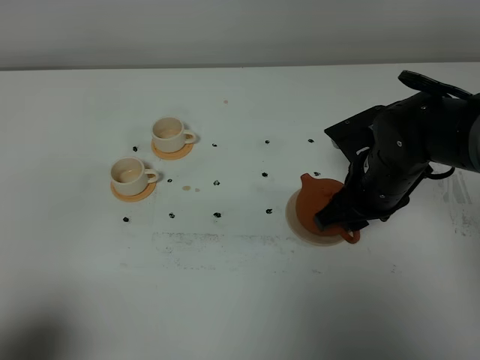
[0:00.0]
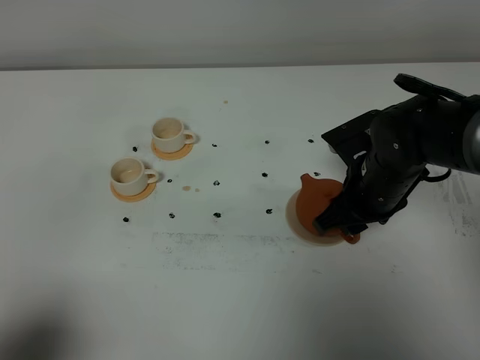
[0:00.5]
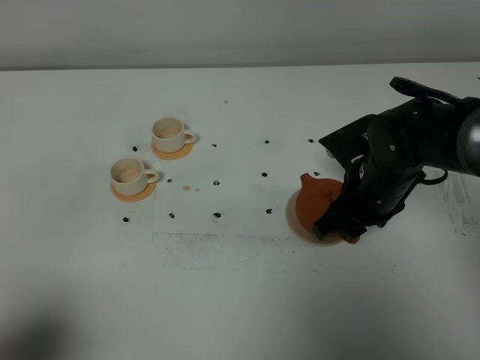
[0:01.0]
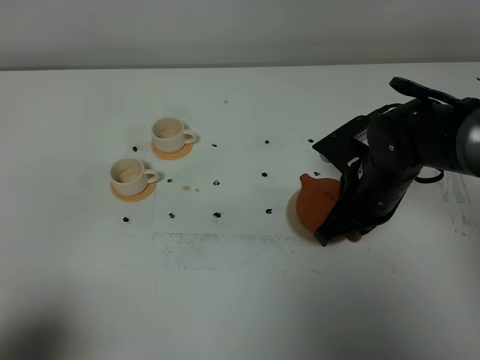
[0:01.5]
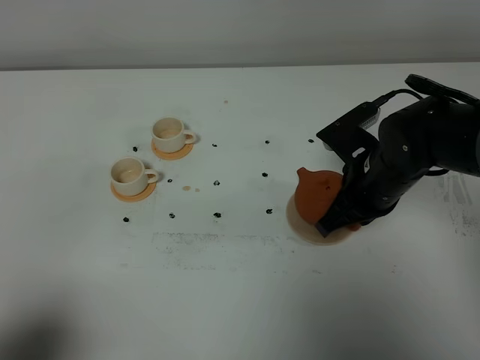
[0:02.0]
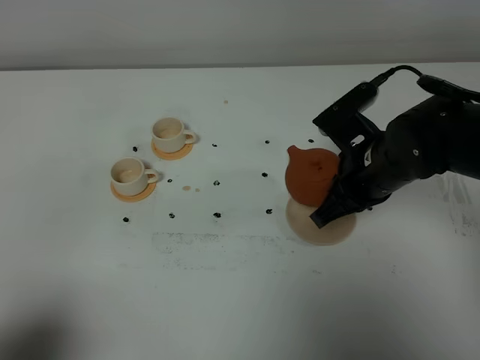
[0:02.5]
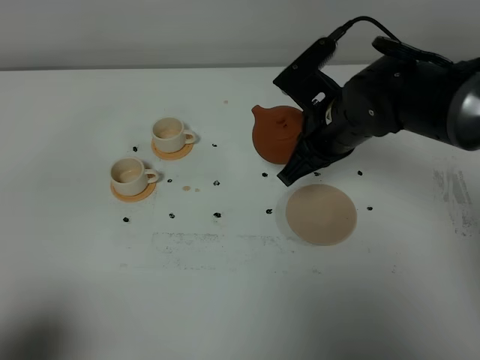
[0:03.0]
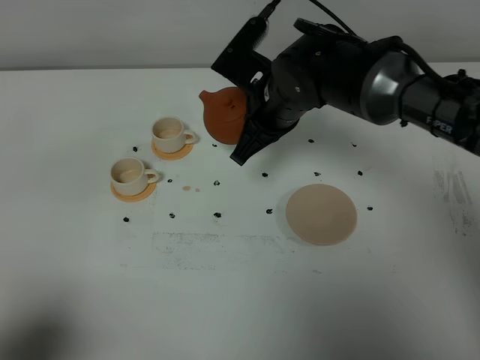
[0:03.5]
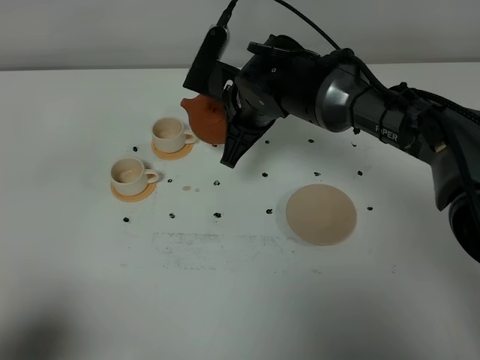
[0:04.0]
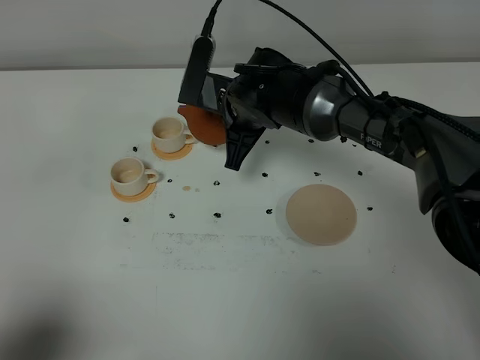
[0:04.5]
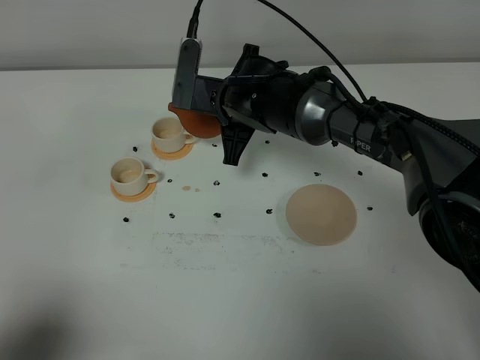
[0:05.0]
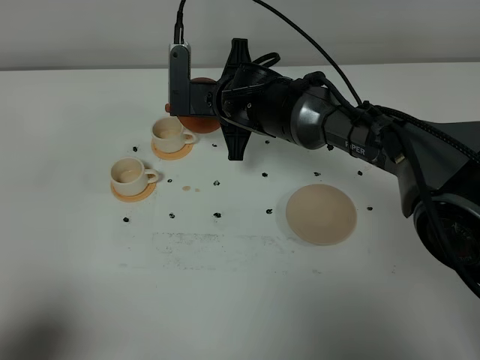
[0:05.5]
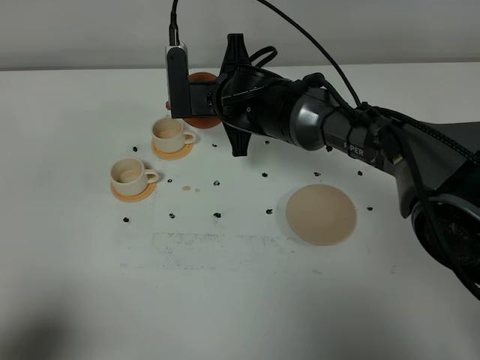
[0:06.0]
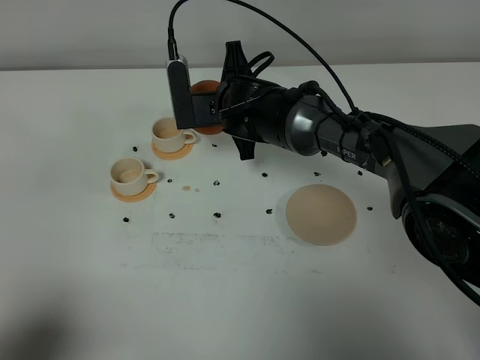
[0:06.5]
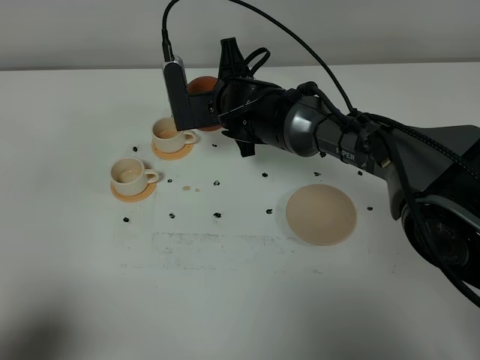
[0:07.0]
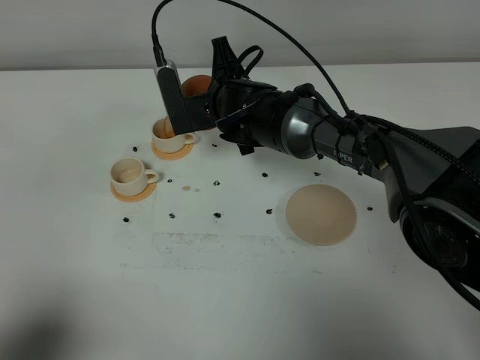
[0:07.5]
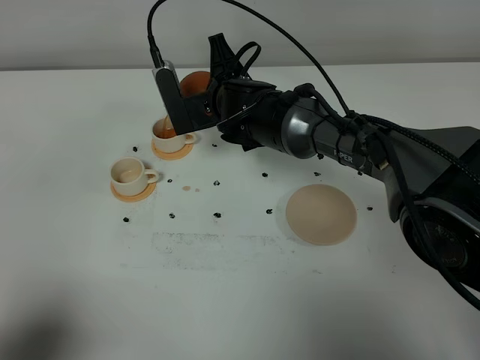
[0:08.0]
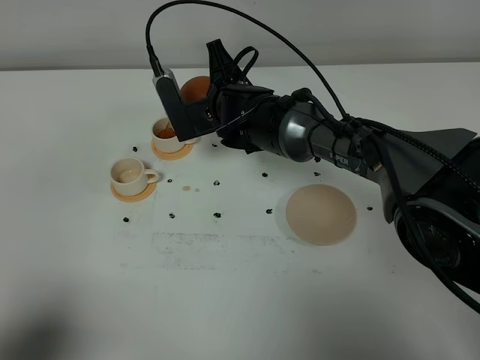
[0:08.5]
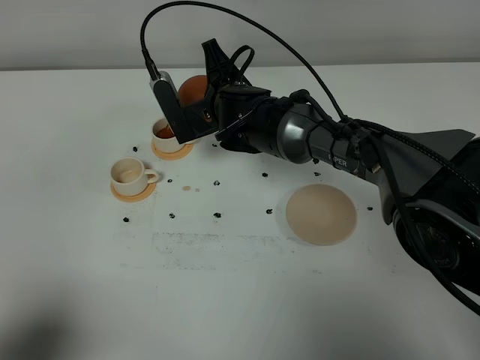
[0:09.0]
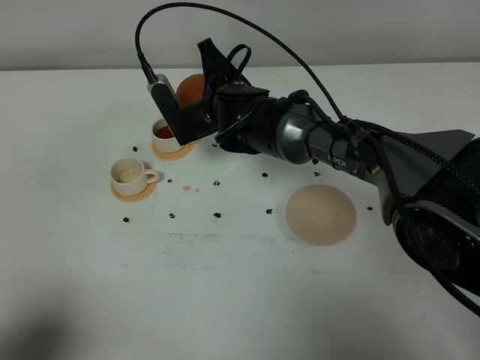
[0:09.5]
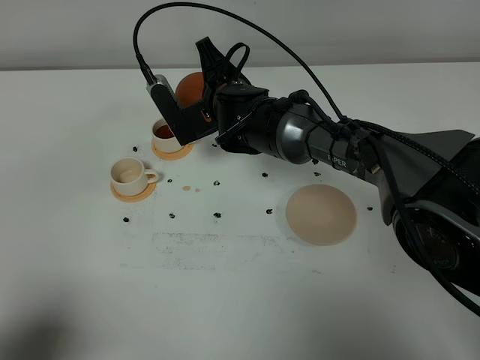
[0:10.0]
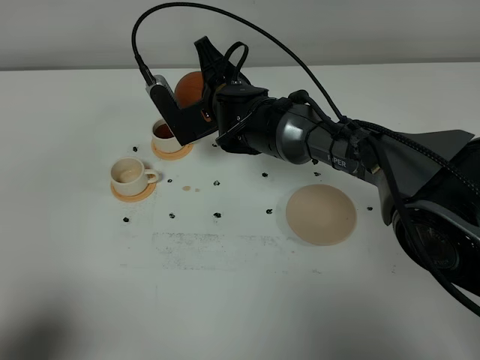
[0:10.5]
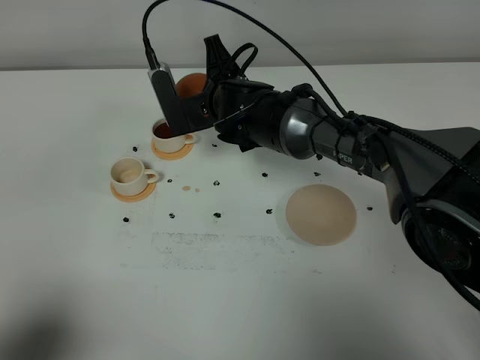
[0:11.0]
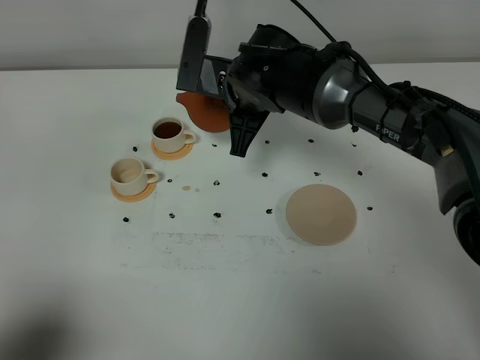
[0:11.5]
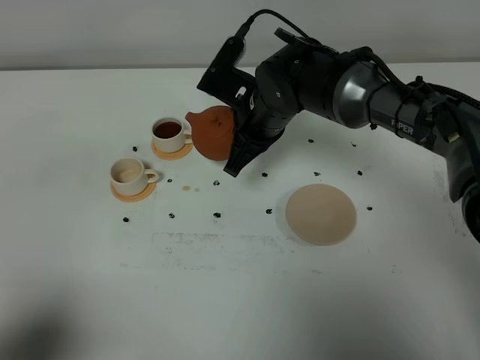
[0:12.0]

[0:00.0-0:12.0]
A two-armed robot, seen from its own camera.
Task of the whole recording: grasp the brown teapot and pour the tea into the two white teacups one by one, put the brown teapot back in its original place.
Step, 0:02.0 to 0:11.0: Pour tea into the teacup with the right gripper.
0:00.0 to 0:02.0: The right gripper closes up.
0:02.0 to 0:04.0: The right gripper travels to the left and forward by approximately 15 cm.
0:06.0 to 0:08.0: The grippers stay close to where they were, moving slightly.
0:08.0 to 0:10.0: The grippers stay close to where they were, moving slightly.
0:10.0 to 0:12.0: The right gripper ends up roughly 5 cm from where it was.

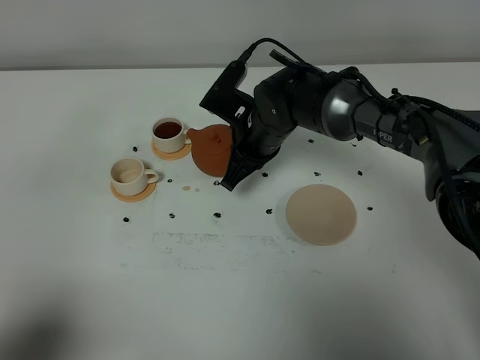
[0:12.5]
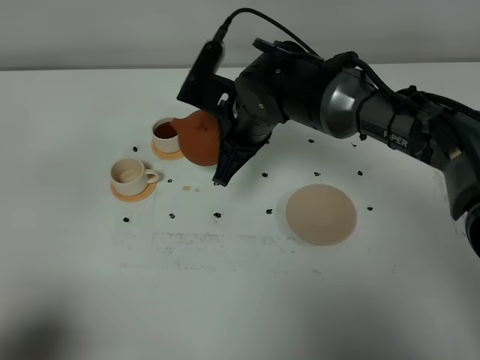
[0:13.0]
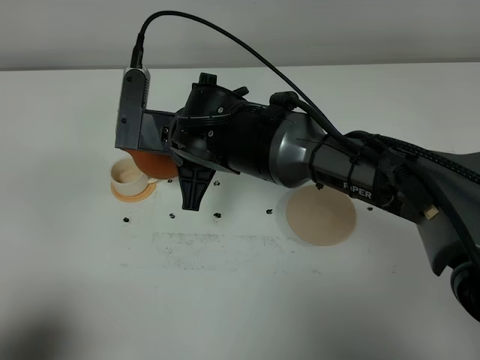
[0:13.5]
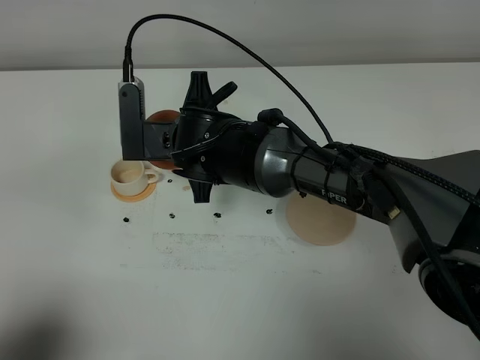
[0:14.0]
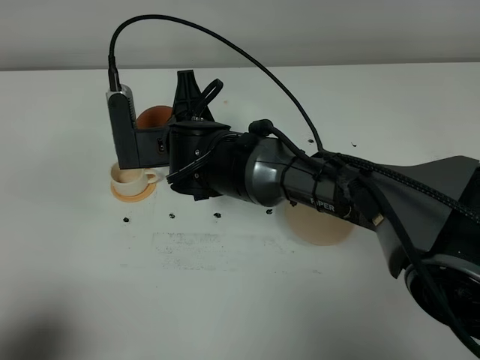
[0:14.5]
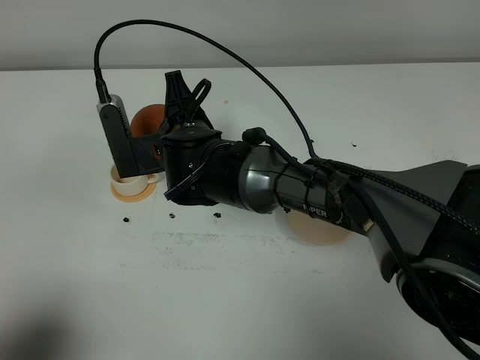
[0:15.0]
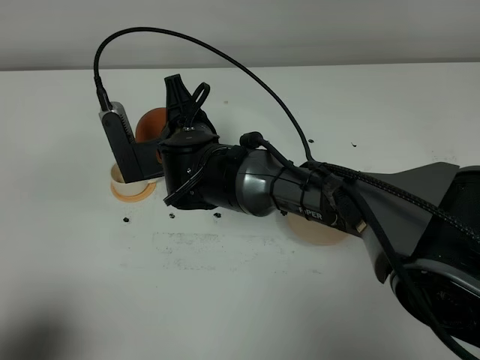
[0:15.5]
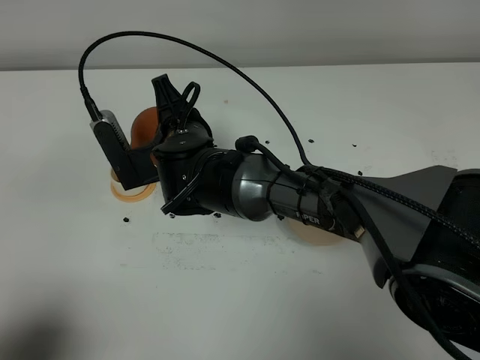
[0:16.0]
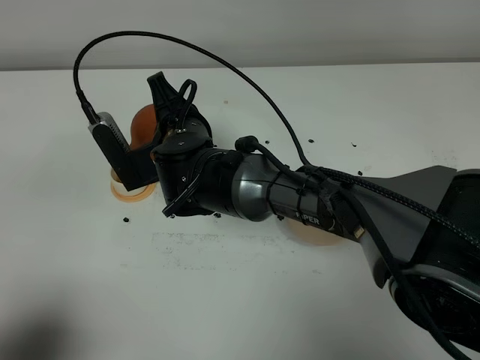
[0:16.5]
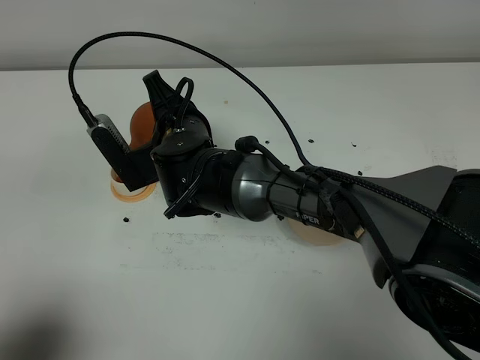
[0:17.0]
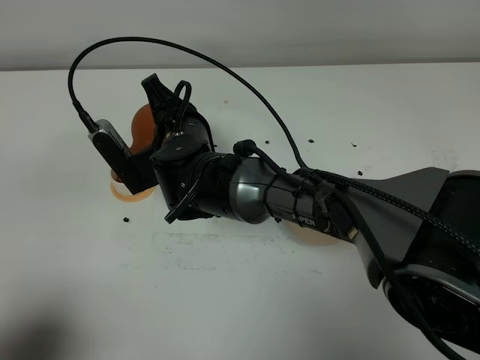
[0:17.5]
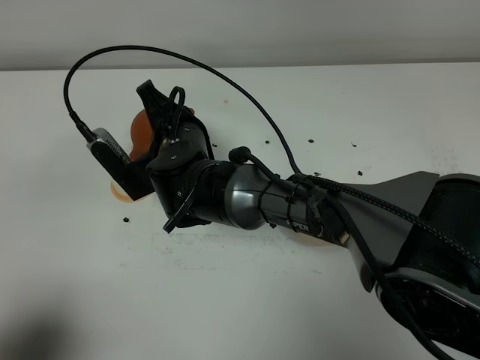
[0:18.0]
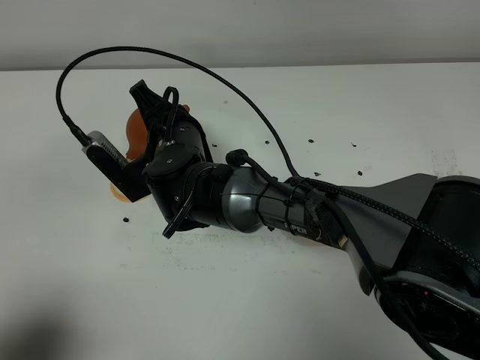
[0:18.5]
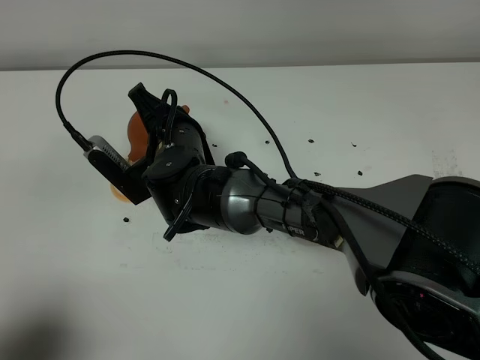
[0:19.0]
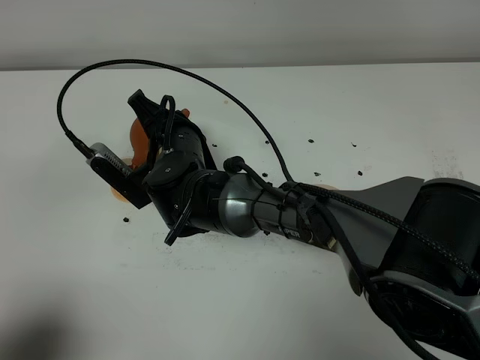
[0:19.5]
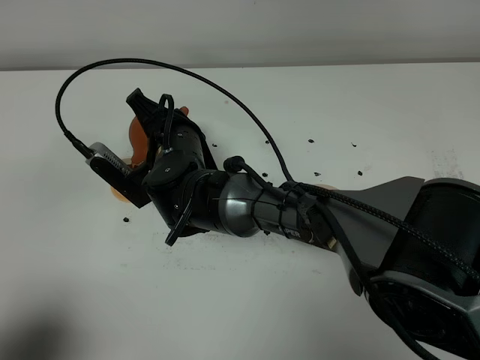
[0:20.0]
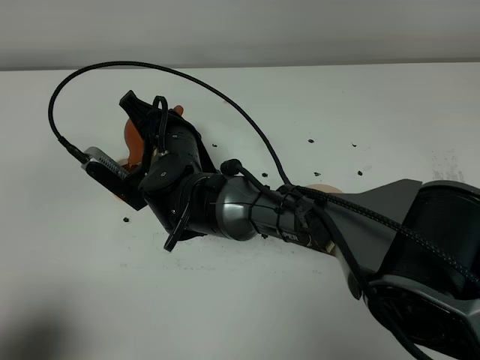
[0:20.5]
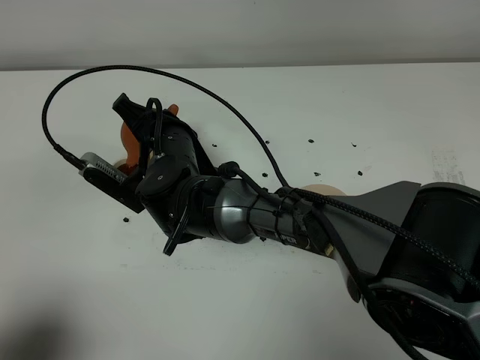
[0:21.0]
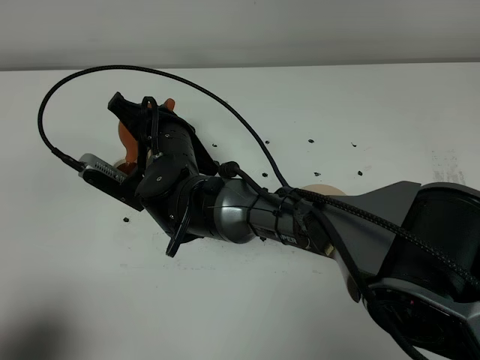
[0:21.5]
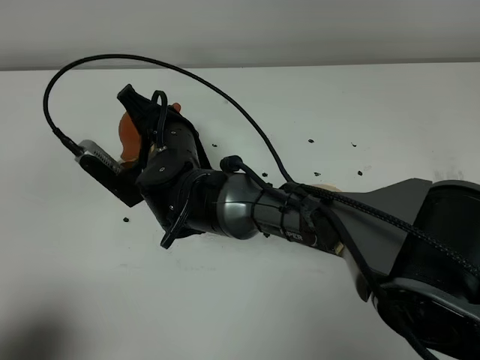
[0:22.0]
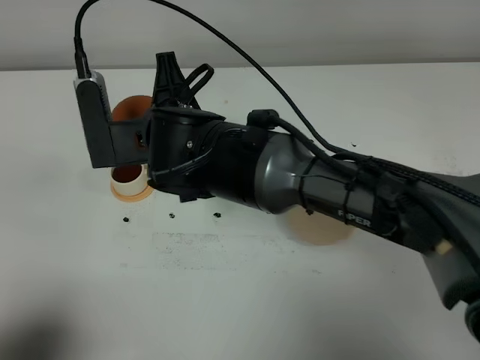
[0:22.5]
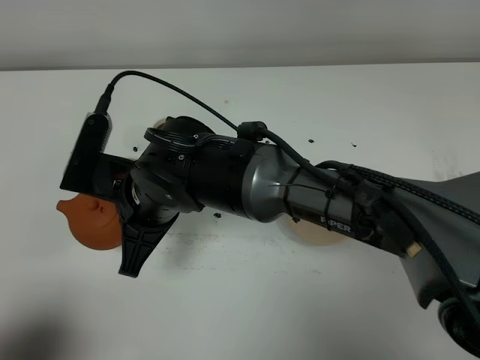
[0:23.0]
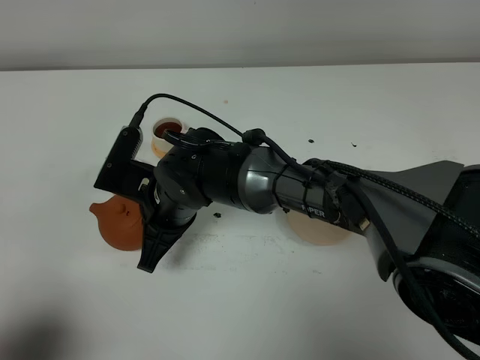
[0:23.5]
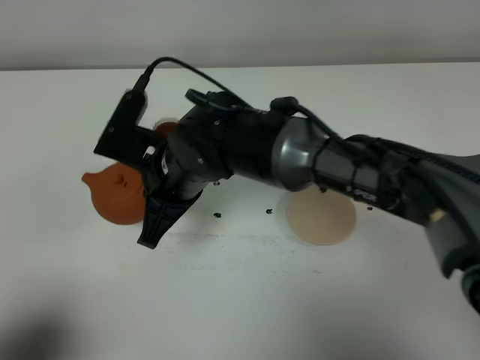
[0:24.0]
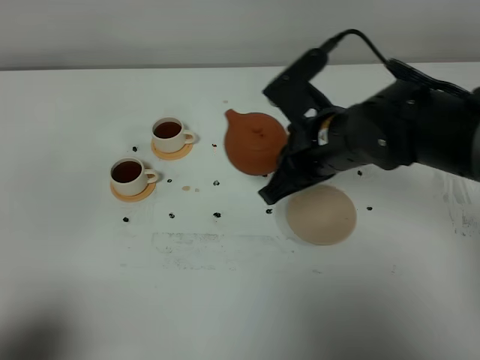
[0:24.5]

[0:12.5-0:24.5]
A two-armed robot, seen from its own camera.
Task of the whole recording: grasp the brown teapot and pour the tea into the two white teacups one by one, put the brown teapot back in its original place.
Step, 0:12.5 to 0:22.0: Pour tea into the teacup with the right gripper.
0:12.5 to 0:14.5: The right gripper is displaced to the left and backward by about 10 cm.
0:16.5 to 0:20.5: The grippers stay close to where they were, moving slightly.
0:20.5 to 0:22.5: The right gripper travels upward by approximately 10 cm.
0:22.5 to 0:24.5: The right gripper shifts roughly 15 cm to the right.

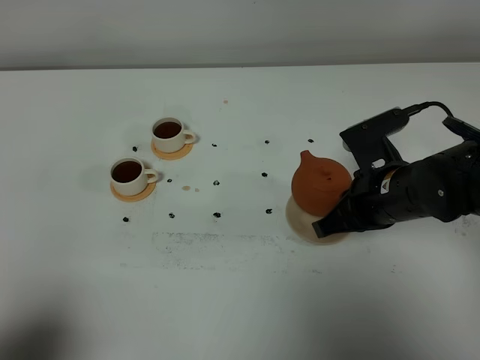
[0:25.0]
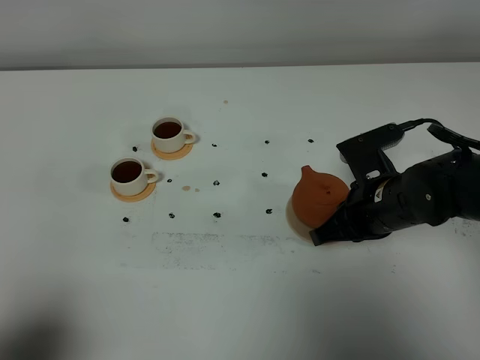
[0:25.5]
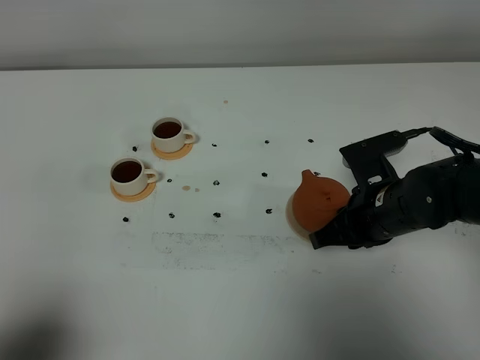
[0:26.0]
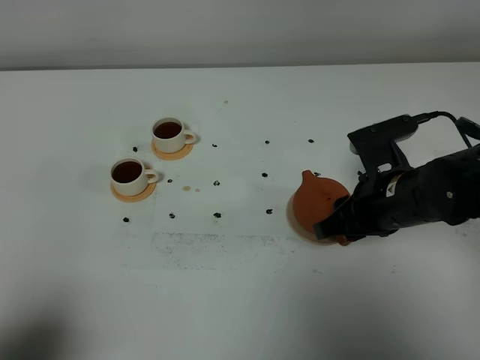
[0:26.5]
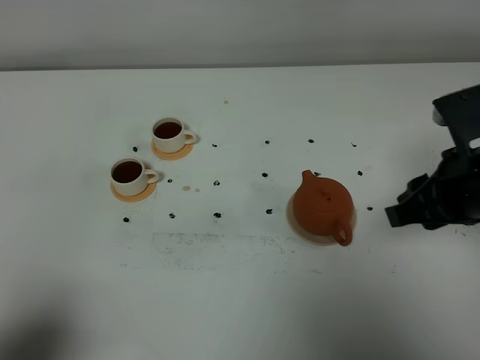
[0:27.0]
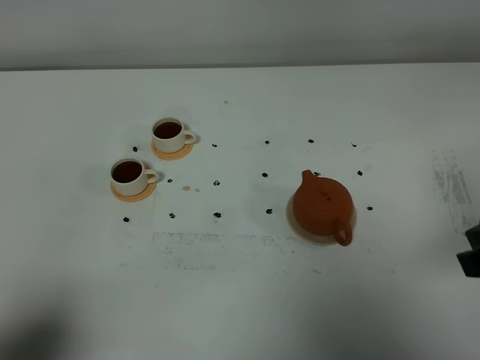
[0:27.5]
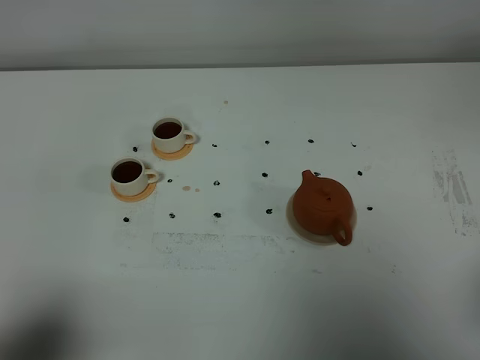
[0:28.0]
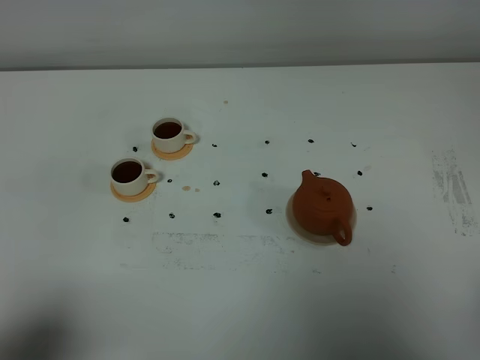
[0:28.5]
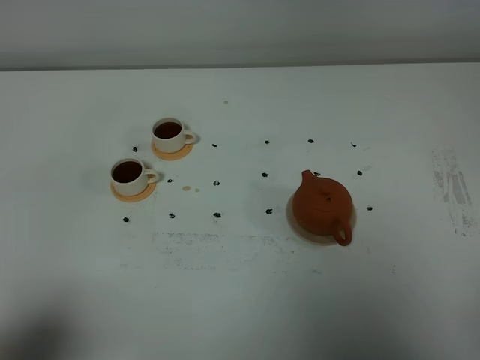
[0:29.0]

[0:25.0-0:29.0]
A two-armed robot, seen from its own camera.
Task of the whole recording: grasp the brown teapot and pour the tea into the two white teacups one by one, put the brown teapot back in its original place.
0:25.0 to 0:27.0: The right gripper is displaced upward and to the right by roughly 10 cm, and opens its fingers.
0:27.0 to 0:29.0: The right gripper goes some 20 cm backward and to the right.
